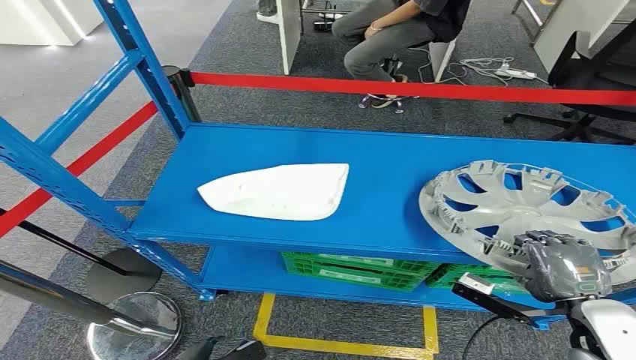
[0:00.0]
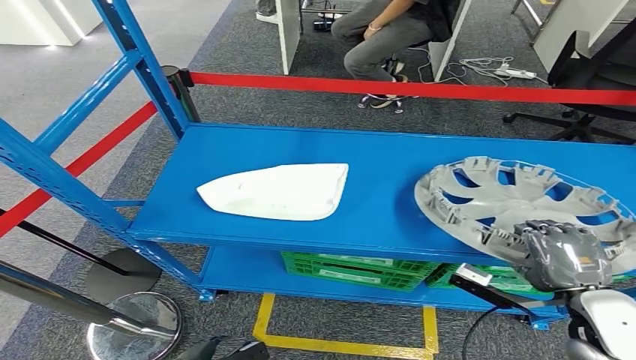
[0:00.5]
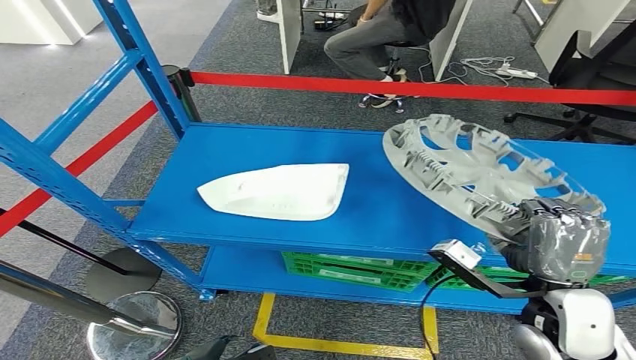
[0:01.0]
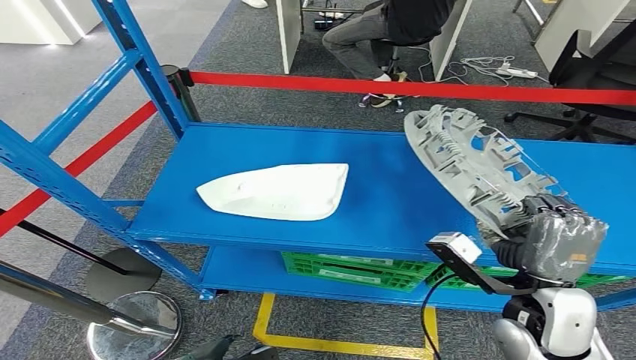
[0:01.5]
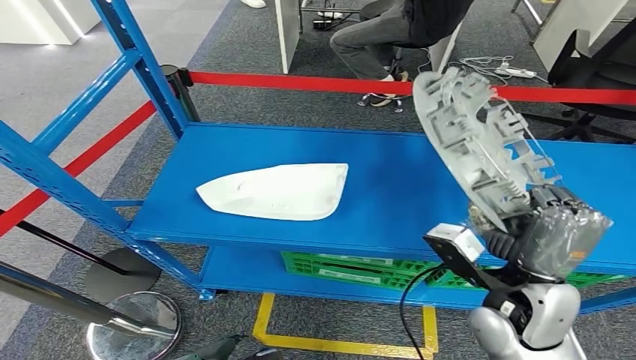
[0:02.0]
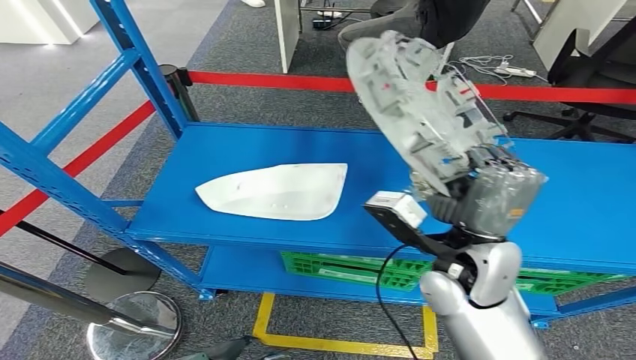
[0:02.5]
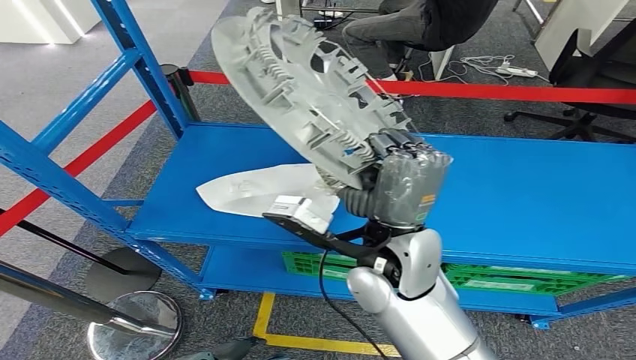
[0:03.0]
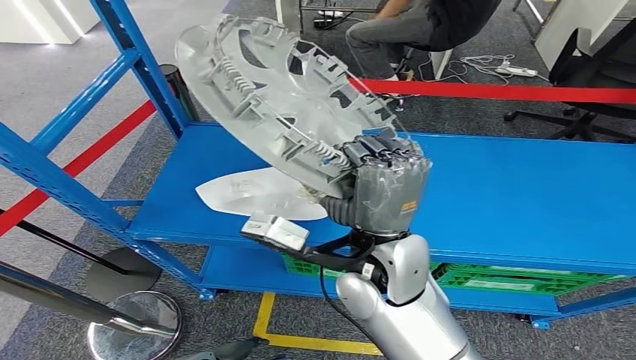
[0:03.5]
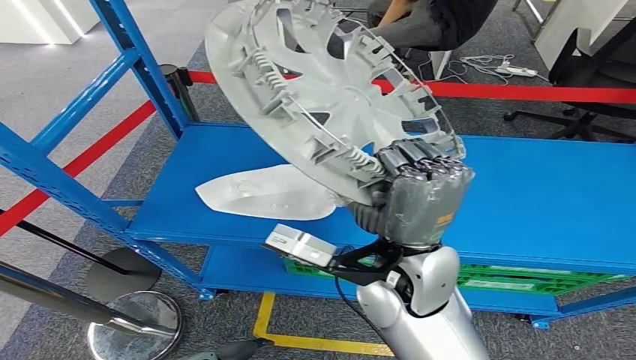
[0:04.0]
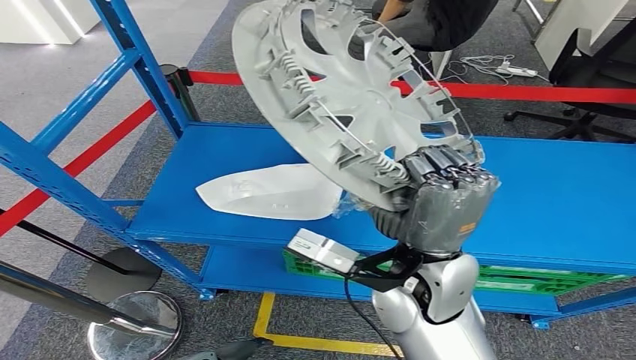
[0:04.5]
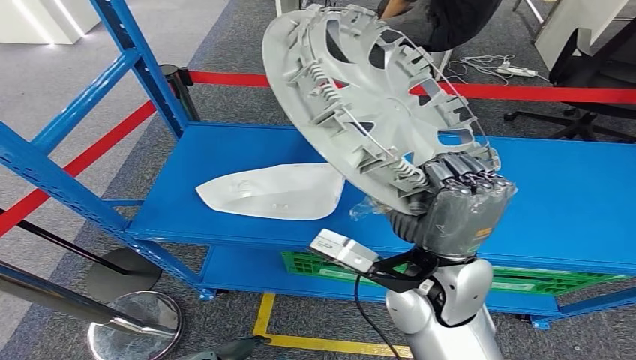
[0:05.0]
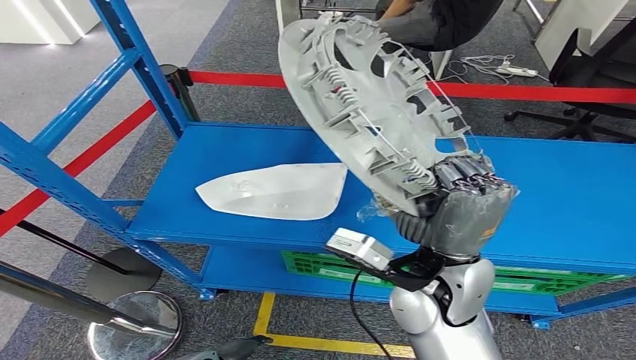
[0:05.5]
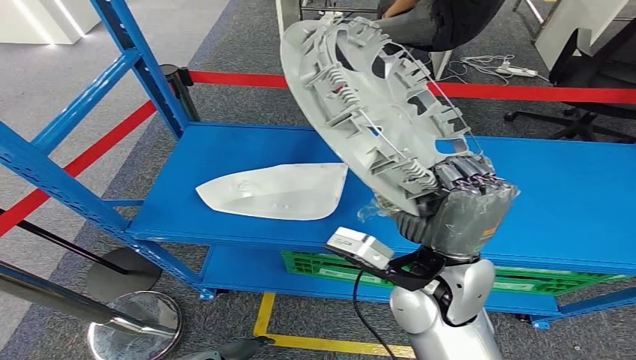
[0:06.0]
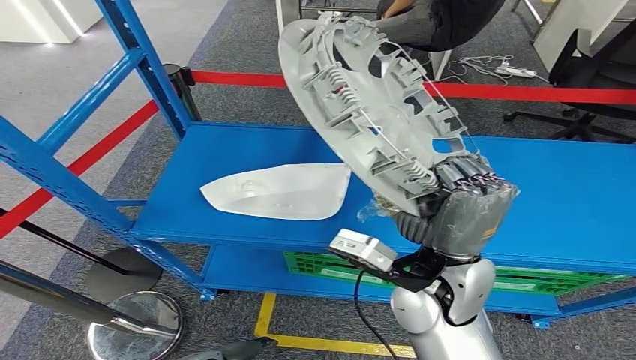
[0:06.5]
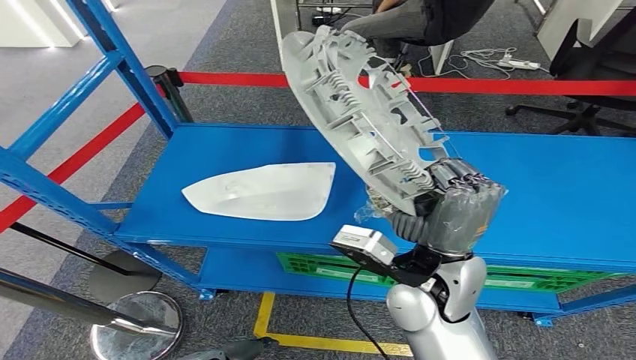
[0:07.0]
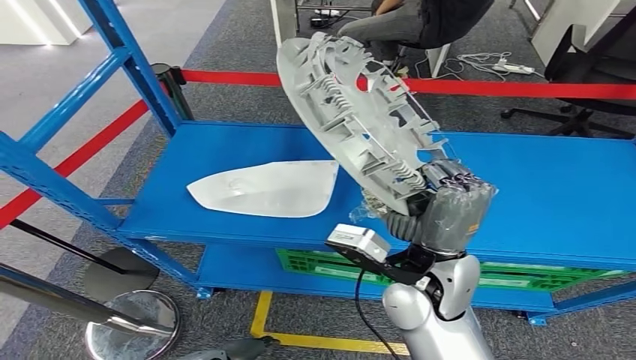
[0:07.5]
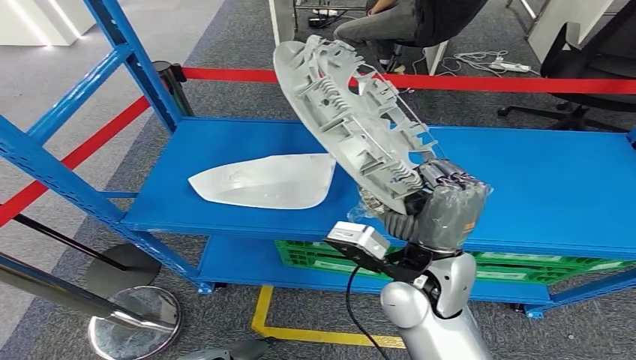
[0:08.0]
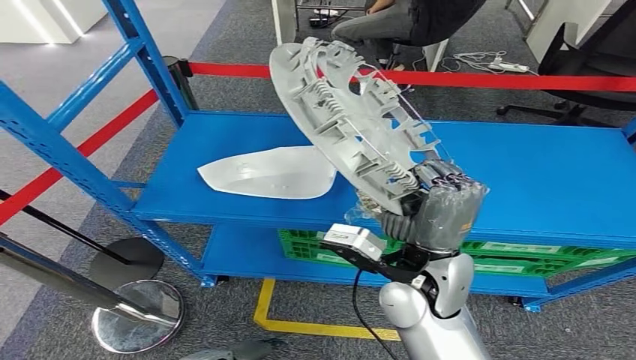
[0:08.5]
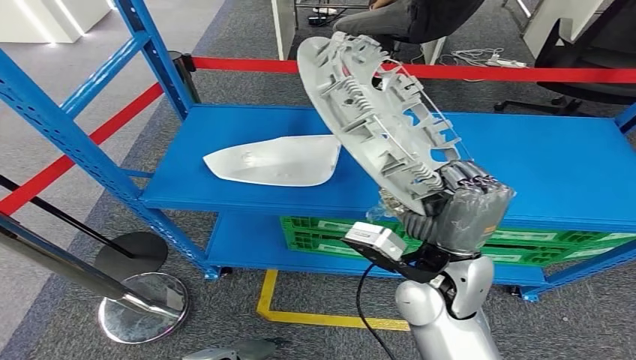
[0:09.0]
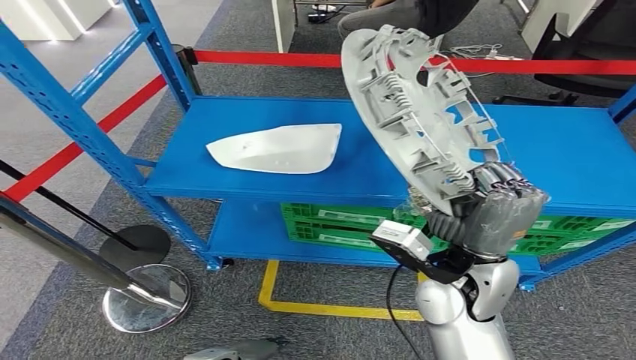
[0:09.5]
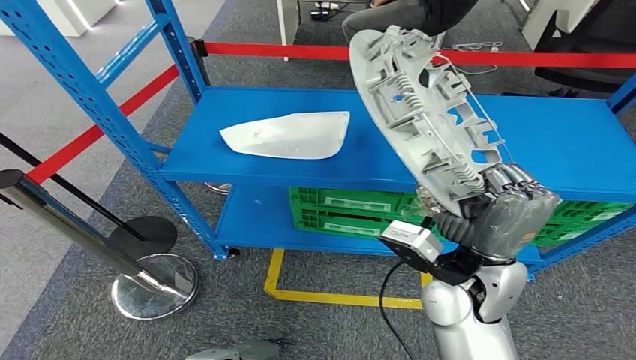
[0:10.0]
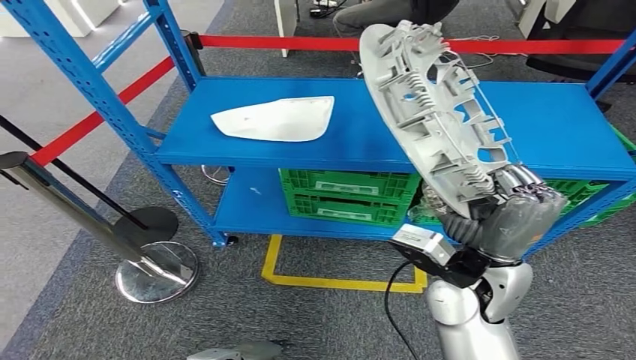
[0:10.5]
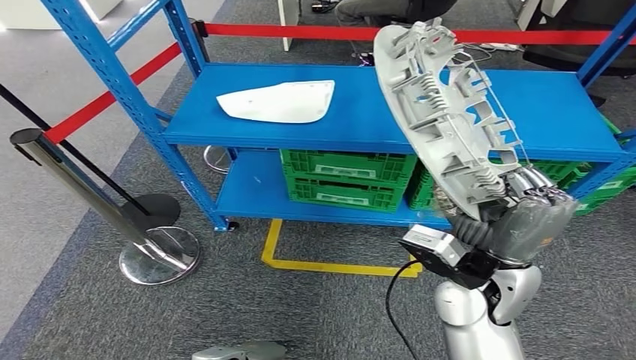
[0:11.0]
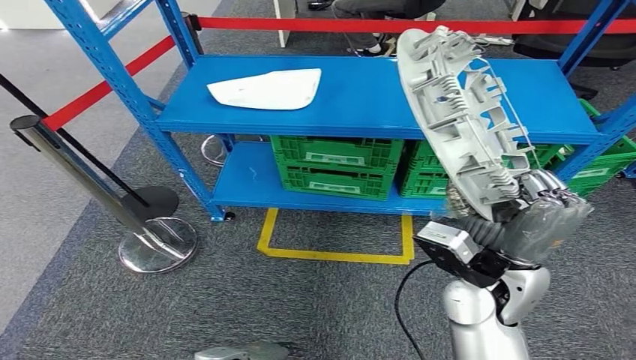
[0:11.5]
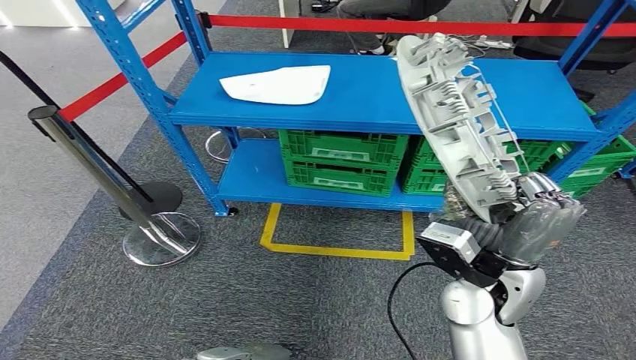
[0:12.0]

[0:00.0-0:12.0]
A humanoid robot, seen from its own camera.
Step, 0:00.0 to 0:04.5: Pick up the small component from the shelf.

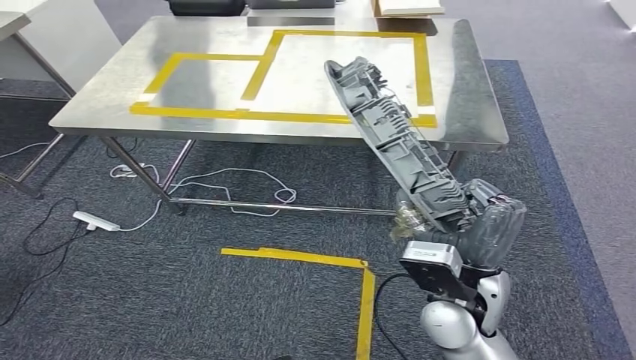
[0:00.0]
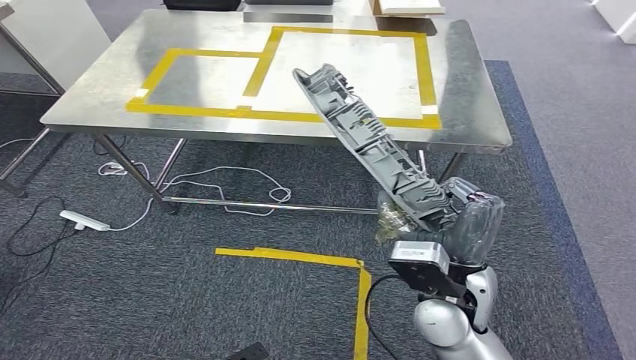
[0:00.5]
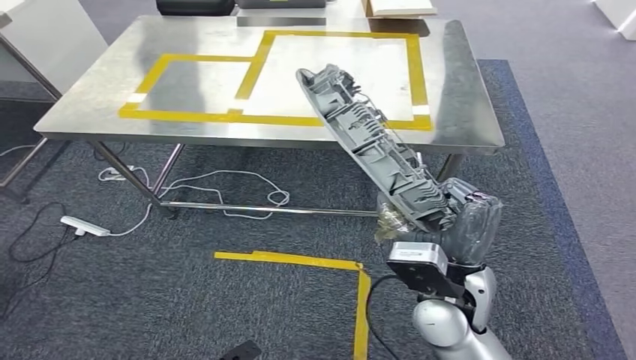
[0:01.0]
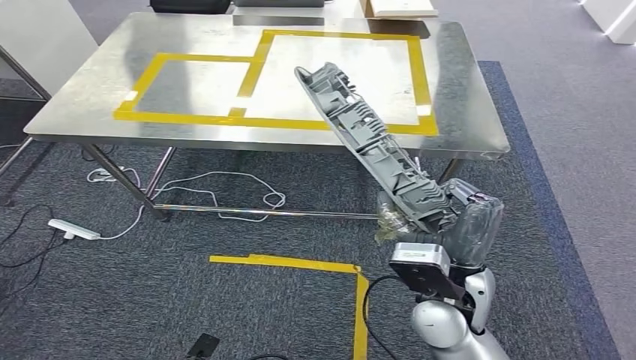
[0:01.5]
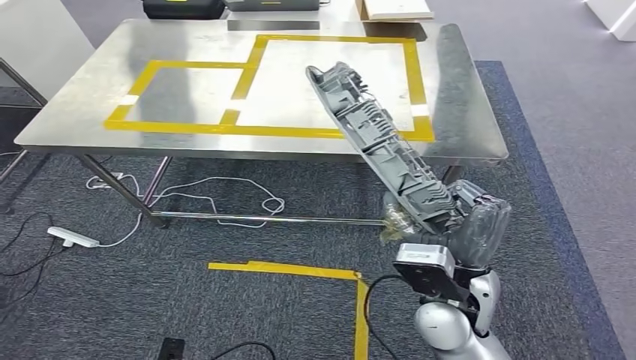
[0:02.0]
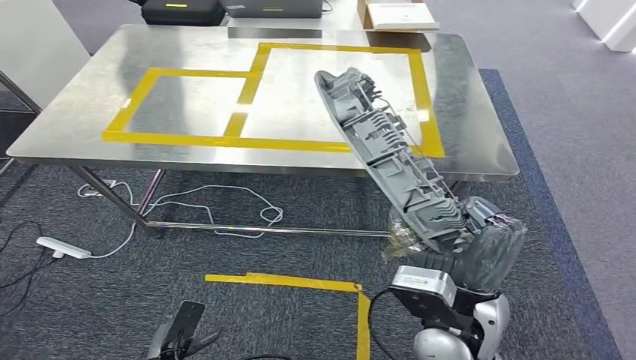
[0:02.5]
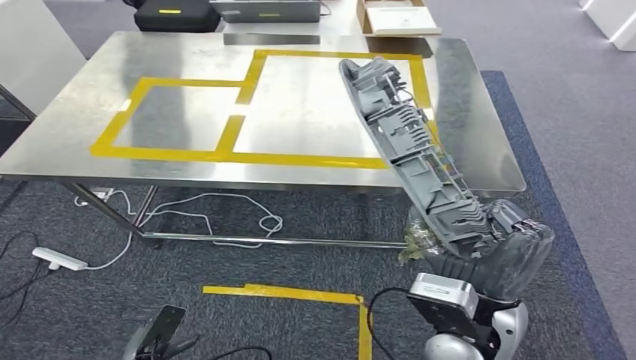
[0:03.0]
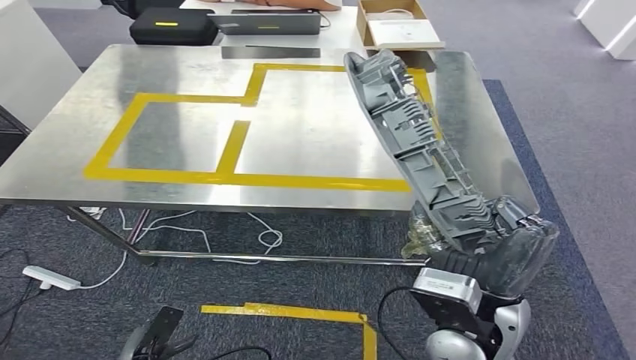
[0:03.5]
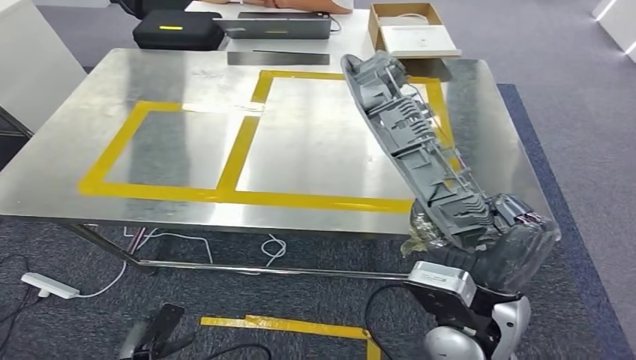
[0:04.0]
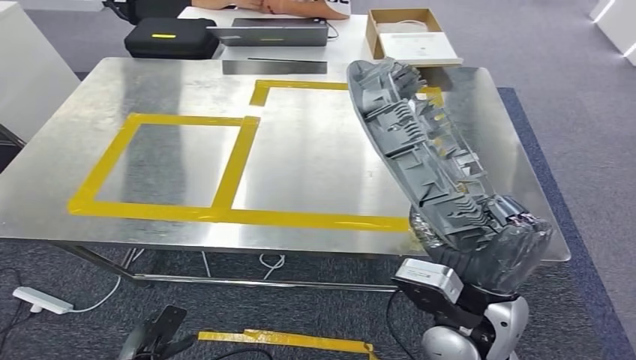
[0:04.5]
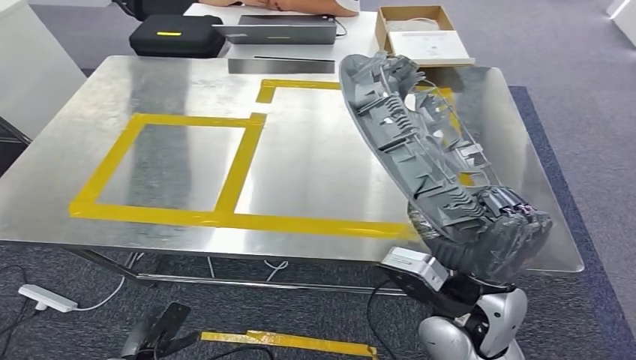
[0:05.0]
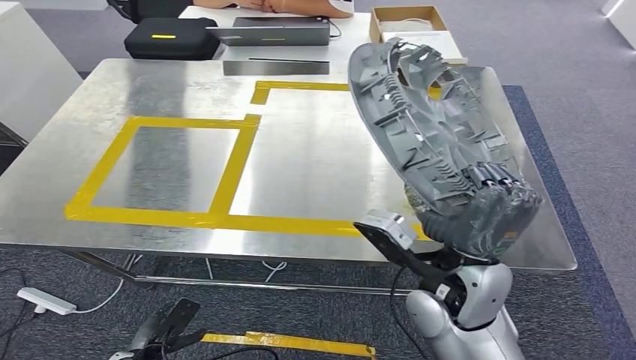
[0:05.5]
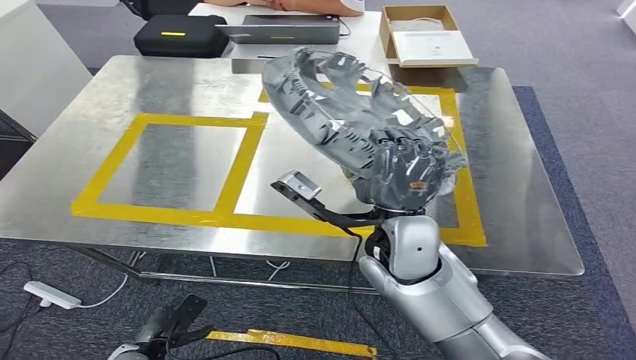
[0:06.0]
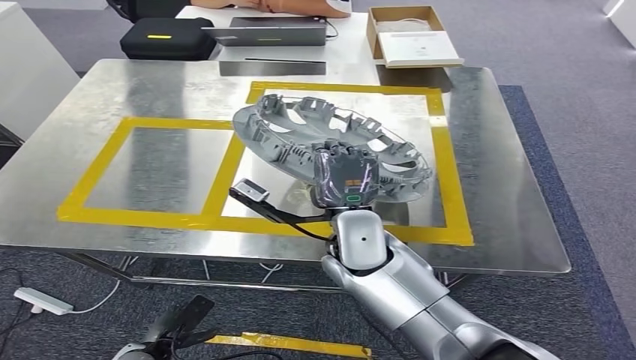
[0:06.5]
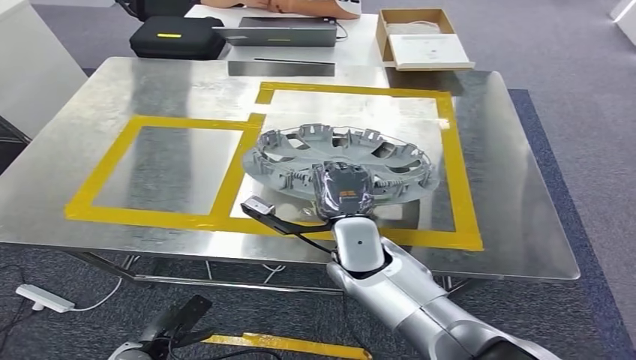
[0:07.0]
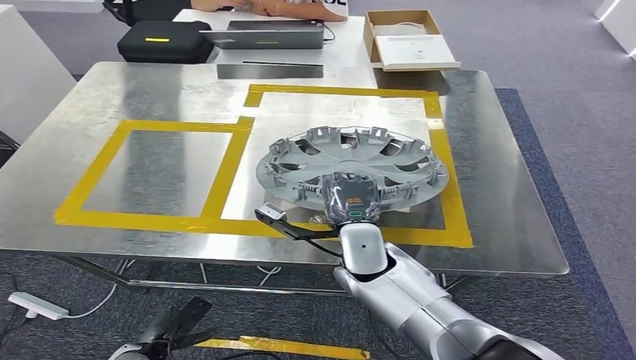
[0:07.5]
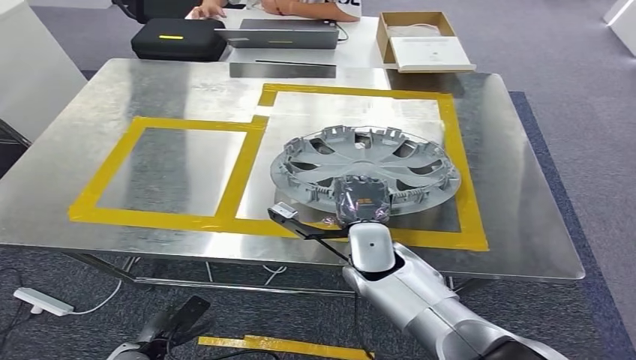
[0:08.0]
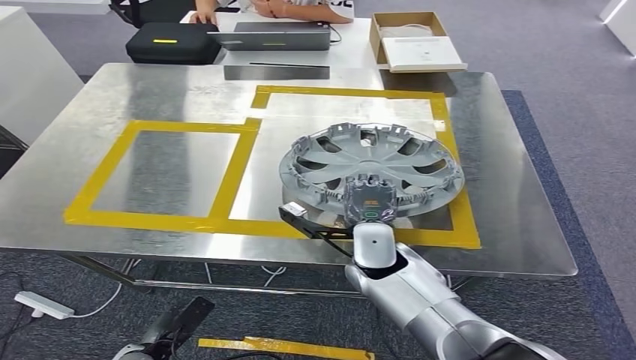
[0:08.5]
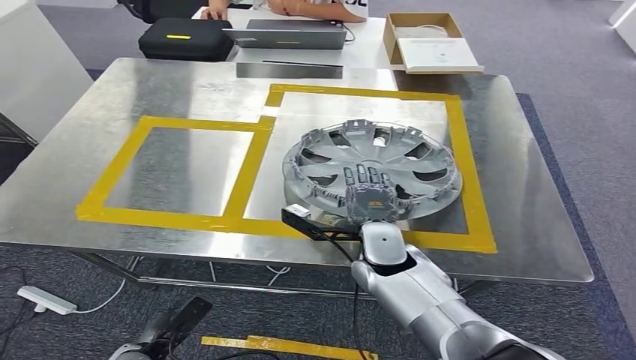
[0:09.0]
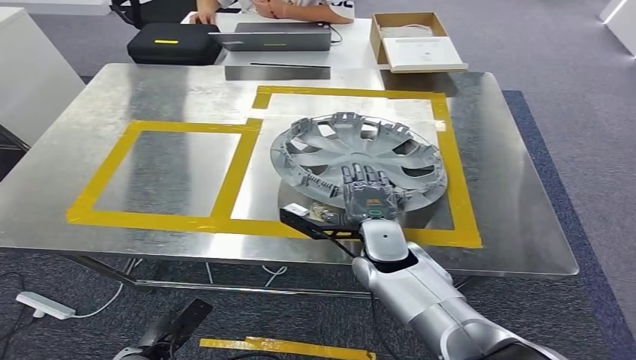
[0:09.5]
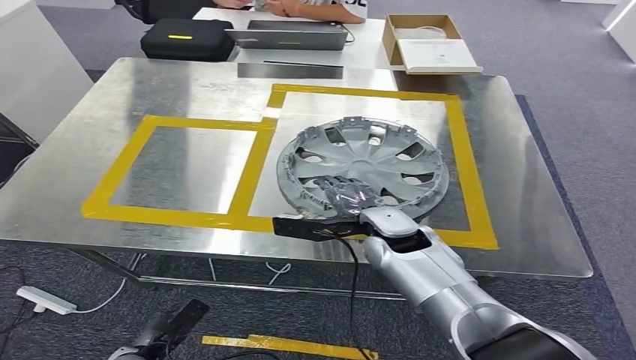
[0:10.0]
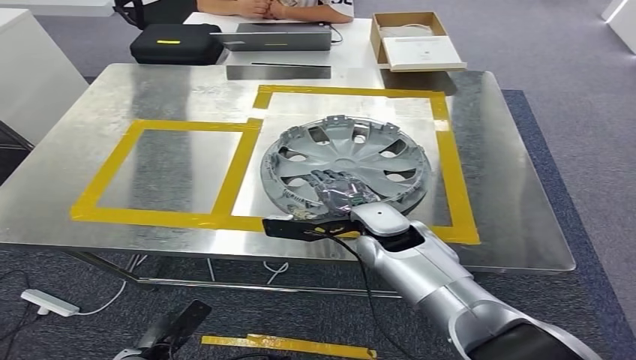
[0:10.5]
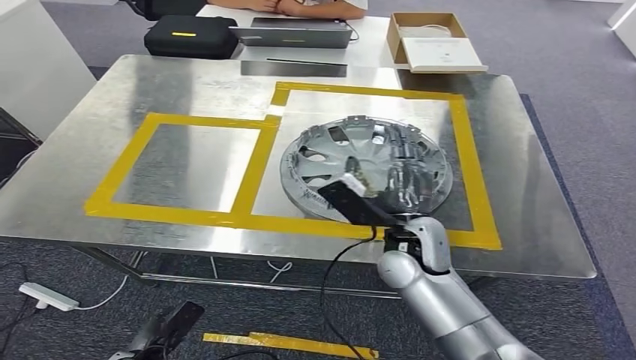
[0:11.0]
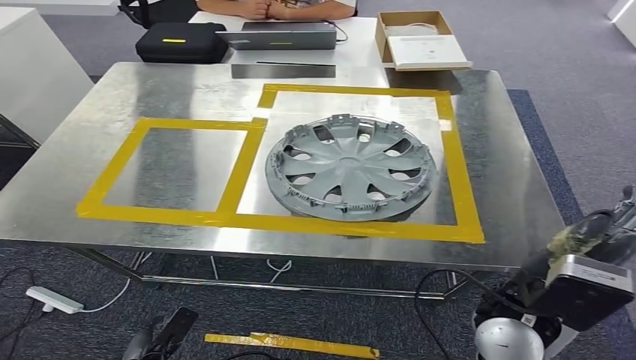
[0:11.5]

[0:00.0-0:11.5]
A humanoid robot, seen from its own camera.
Step, 0:00.0 to 0:02.5: Move the small component to the workbench.
Step, 0:03.5 to 0:11.0: Insert the small component into the corresponding slot on the workbench.
